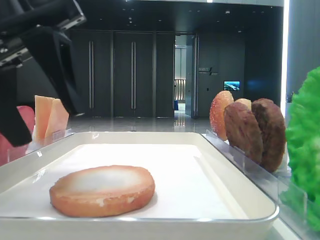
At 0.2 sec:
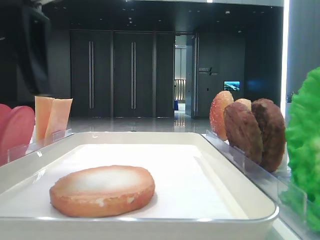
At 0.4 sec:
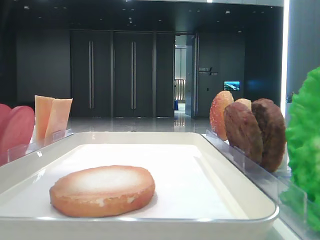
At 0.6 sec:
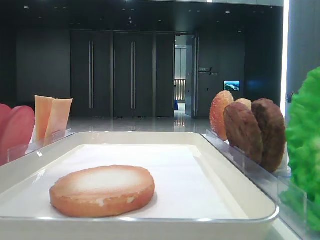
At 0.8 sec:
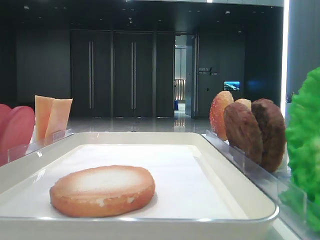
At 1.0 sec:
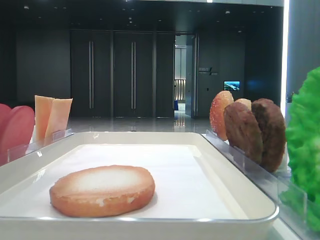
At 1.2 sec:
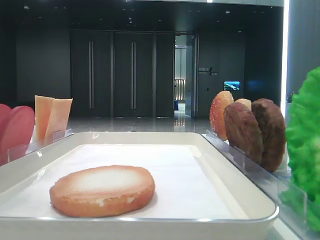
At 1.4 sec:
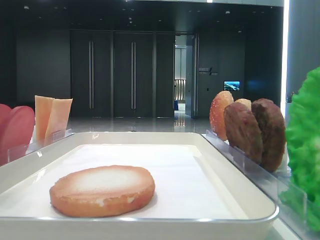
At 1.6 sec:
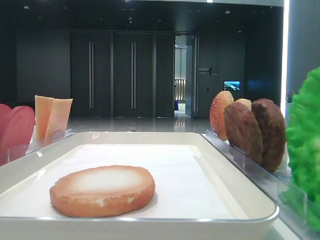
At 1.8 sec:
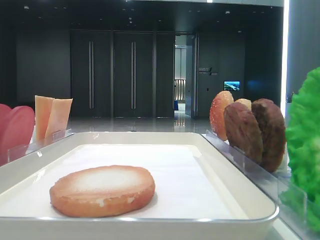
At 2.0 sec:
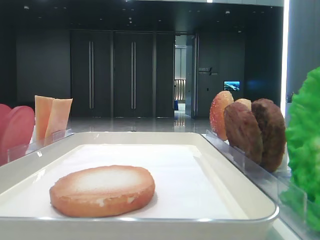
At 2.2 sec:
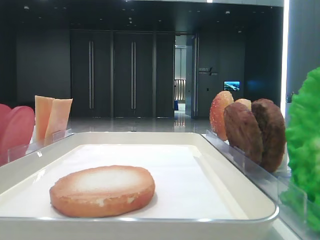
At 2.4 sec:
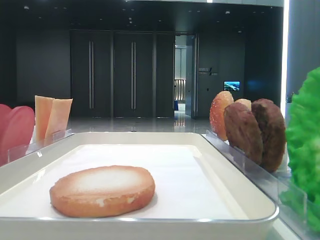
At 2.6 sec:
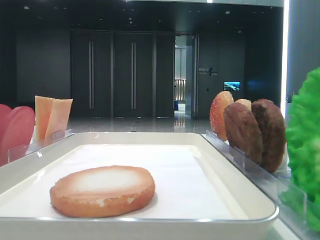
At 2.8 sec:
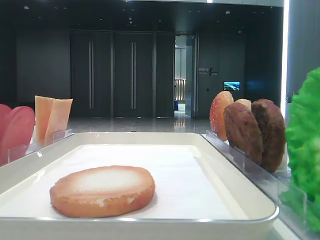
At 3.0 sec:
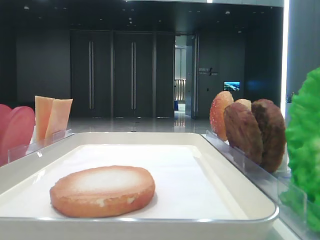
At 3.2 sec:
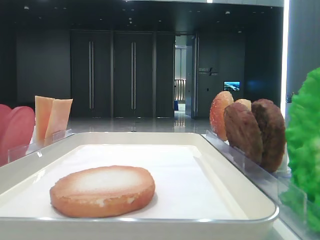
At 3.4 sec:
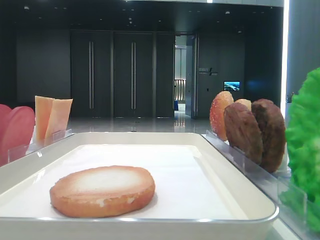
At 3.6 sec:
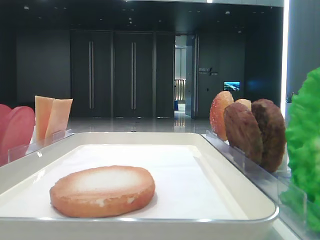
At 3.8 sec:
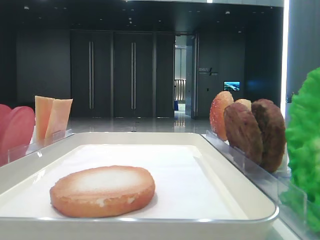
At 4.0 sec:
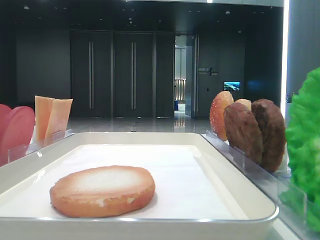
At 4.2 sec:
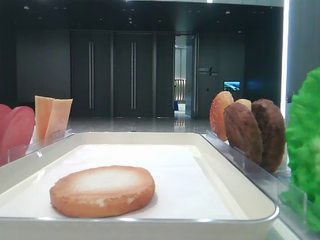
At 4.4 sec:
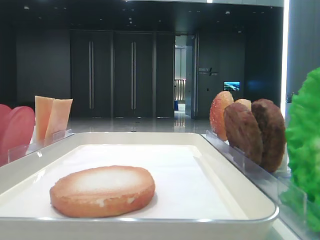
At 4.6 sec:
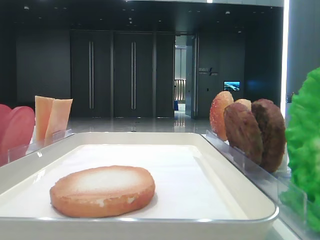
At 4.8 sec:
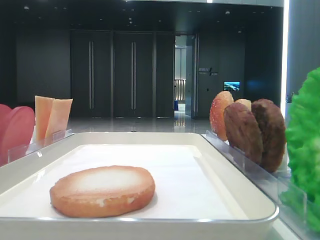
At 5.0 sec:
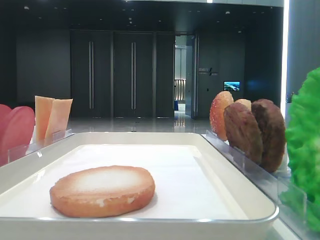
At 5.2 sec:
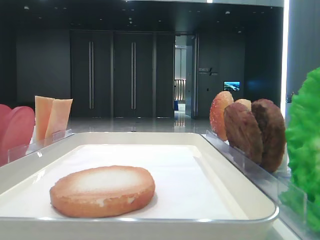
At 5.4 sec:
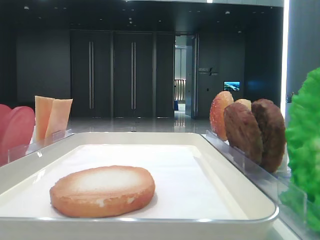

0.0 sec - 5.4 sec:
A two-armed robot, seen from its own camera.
0.0 sec - 1.4 sec: The left gripper travels upward and to the left by some 15 cm, and opens up.

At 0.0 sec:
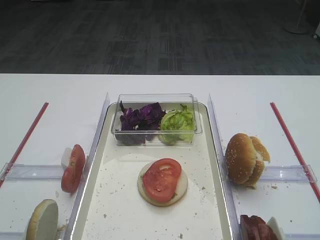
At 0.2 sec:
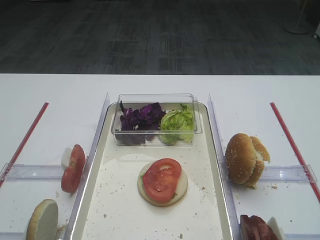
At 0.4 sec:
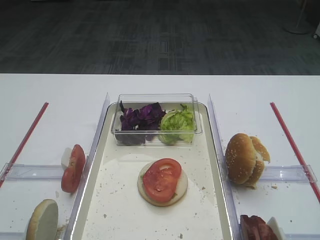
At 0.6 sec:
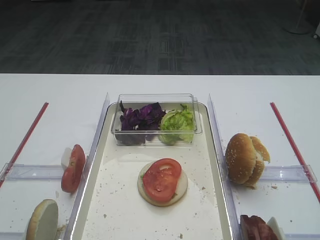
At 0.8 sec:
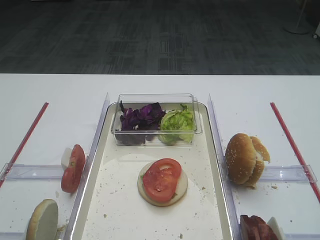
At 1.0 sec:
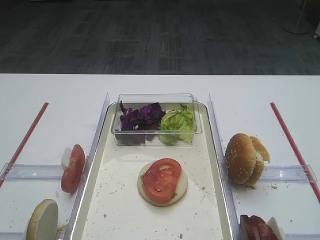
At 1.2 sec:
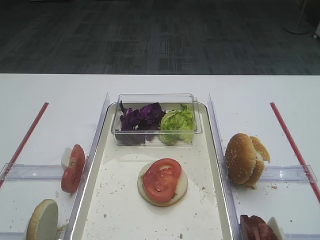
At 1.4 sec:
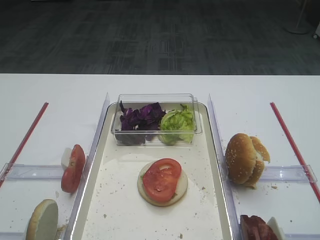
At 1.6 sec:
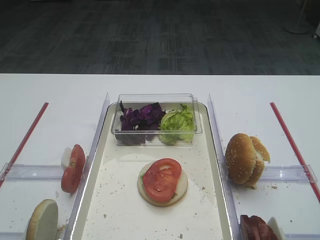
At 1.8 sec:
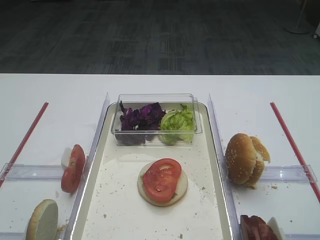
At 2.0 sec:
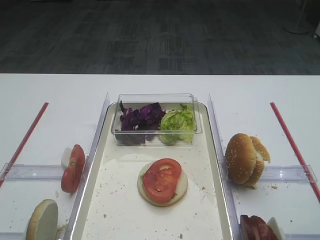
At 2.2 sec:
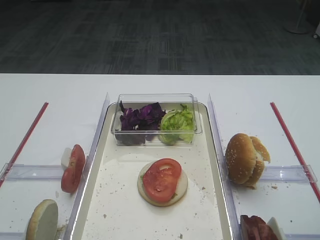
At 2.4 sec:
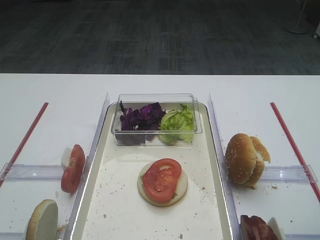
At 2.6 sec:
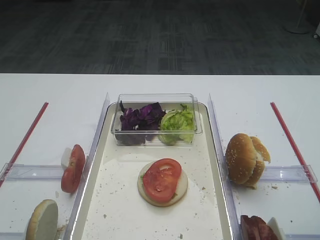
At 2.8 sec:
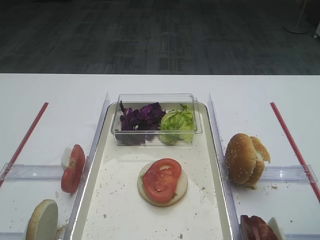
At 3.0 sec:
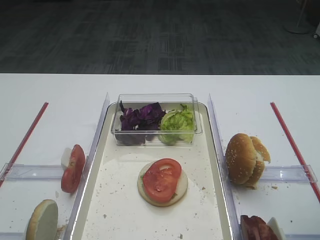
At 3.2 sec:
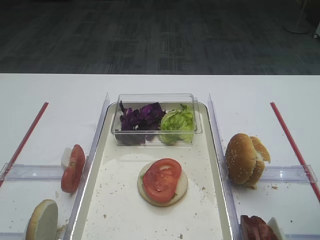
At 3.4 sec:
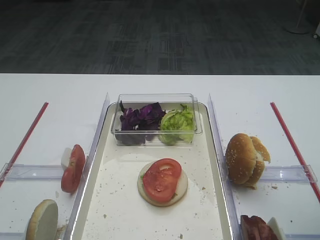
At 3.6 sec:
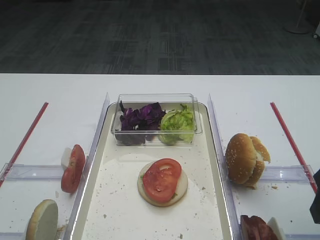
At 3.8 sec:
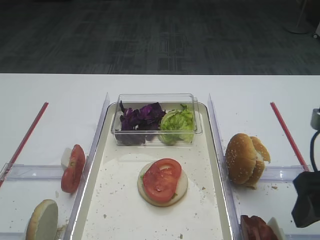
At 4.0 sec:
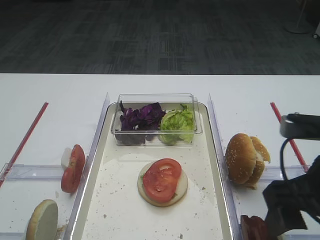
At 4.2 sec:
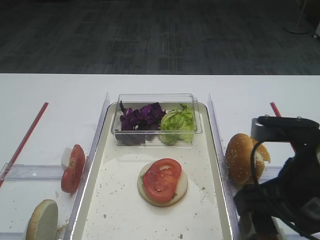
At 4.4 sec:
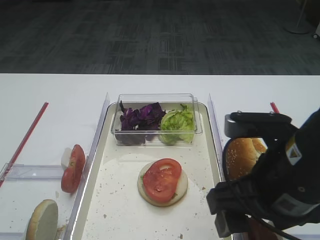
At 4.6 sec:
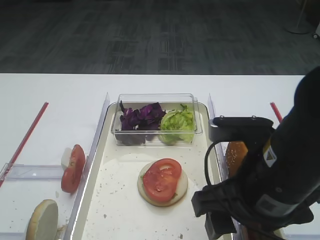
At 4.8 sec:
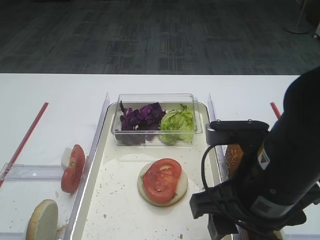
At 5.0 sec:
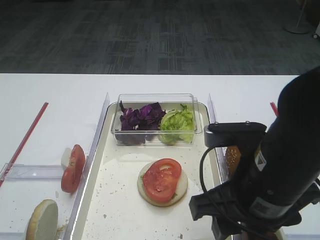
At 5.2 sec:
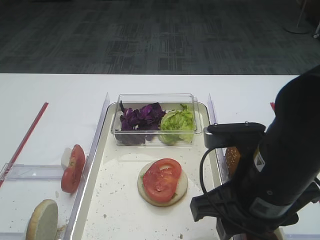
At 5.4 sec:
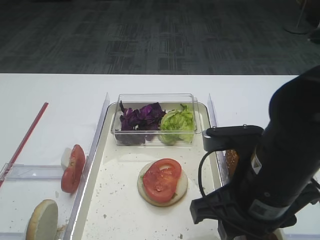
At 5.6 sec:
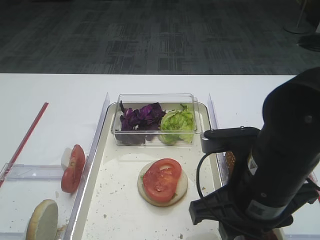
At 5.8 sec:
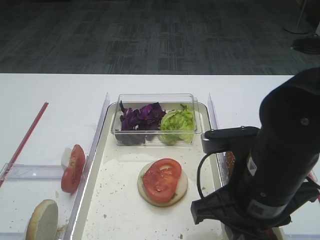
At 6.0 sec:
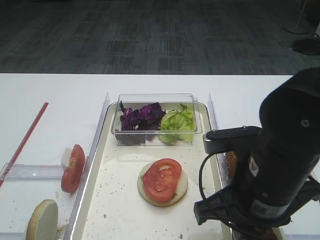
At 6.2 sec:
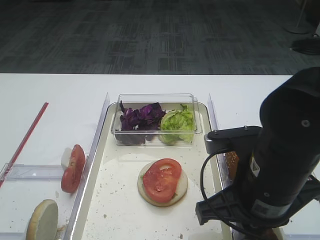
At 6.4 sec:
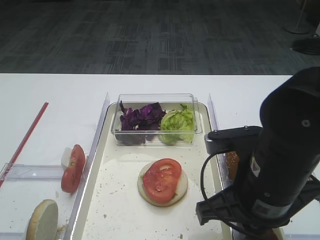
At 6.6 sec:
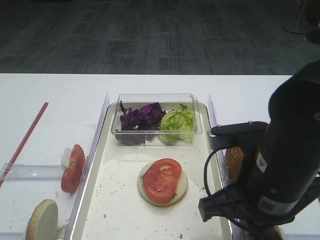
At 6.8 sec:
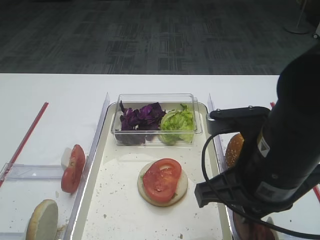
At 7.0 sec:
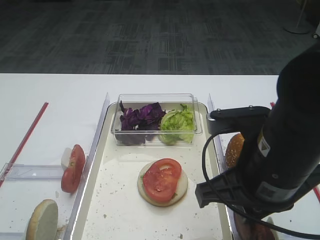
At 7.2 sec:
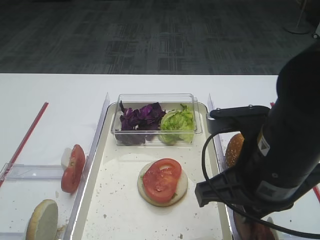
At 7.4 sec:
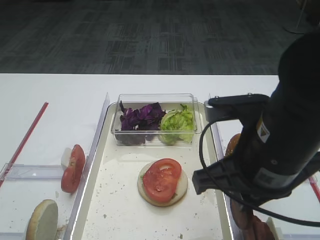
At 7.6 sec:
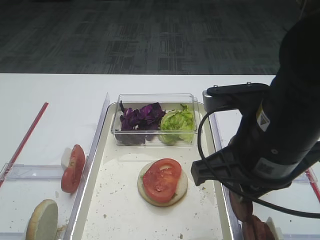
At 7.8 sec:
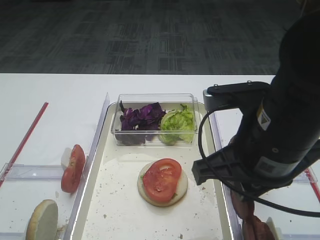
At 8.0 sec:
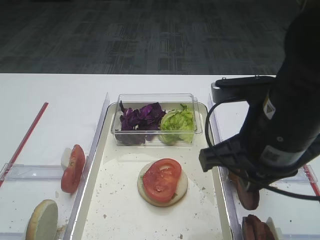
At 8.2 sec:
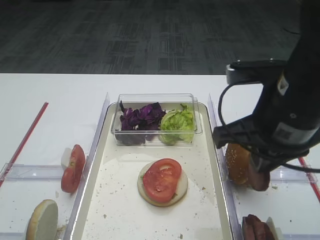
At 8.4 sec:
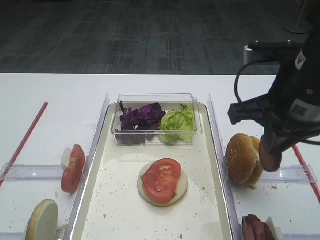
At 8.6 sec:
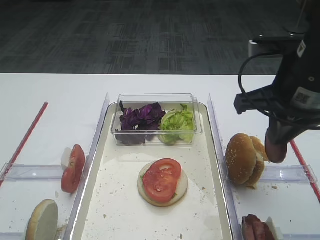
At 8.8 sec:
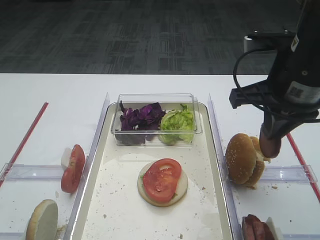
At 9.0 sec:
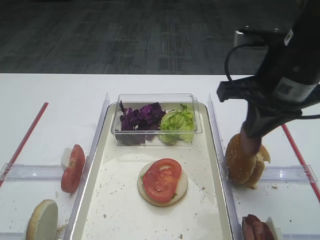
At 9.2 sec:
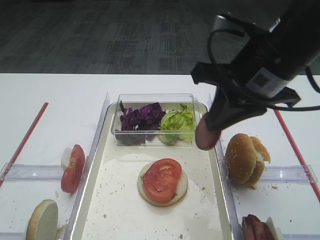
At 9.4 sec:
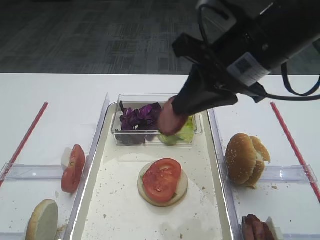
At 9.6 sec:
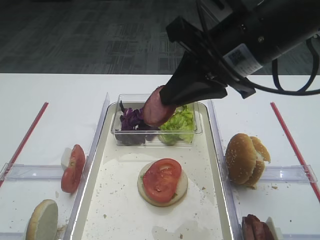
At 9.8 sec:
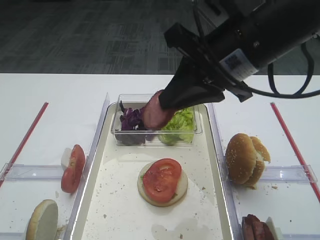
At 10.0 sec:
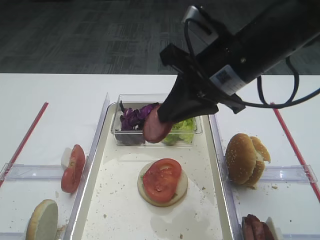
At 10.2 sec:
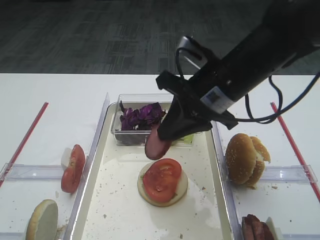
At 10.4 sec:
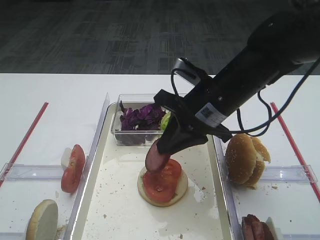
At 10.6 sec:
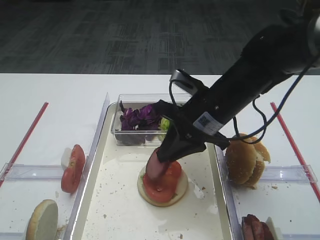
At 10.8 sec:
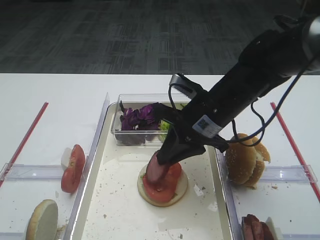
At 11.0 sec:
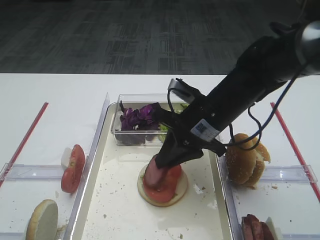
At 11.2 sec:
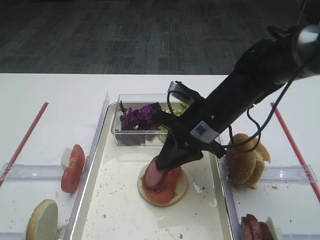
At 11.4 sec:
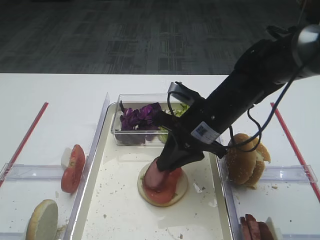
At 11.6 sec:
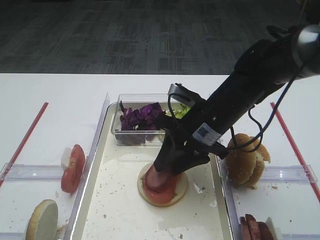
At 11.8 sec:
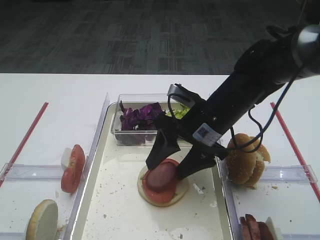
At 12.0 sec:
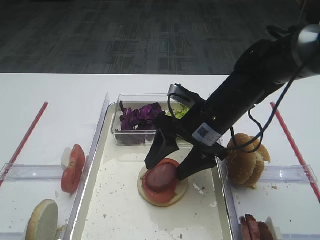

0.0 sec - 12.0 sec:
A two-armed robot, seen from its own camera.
Step, 0.0 sec - 7.2 sec: Pick up the cutlet with the right gripper.
3.0 sec - 4.4 sec: The right gripper goes some 15 cm to the left.
4.4 sec - 6.0 sec: The right gripper closes up.
6.0 sec - 7.6 sec: The right gripper moves upward, roughly 5 cm.
7.6 sec - 9.0 sec: The right gripper goes roughly 10 cm forward.
9.0 sec - 10.4 sec: The right gripper heads to the left and downward, covering some 10 cm.
10.4 sec - 12.0 sec: The right gripper opens up.

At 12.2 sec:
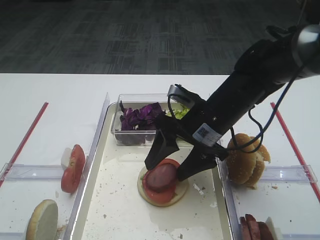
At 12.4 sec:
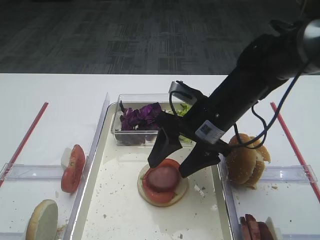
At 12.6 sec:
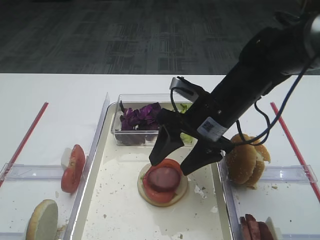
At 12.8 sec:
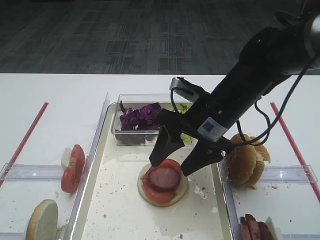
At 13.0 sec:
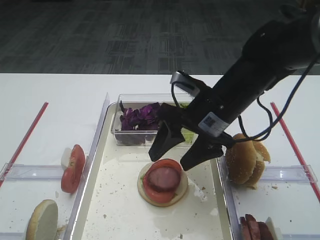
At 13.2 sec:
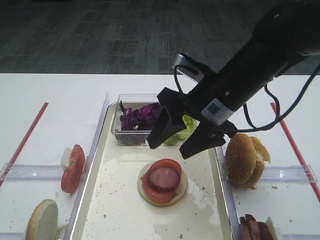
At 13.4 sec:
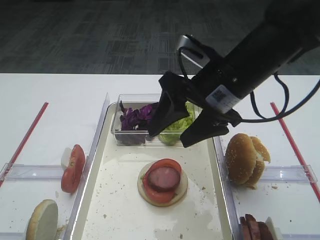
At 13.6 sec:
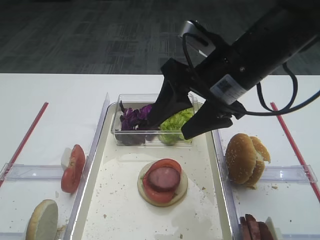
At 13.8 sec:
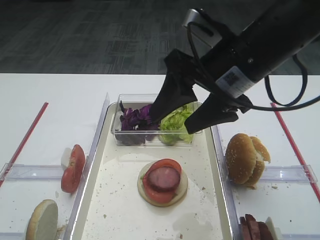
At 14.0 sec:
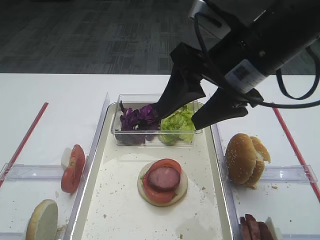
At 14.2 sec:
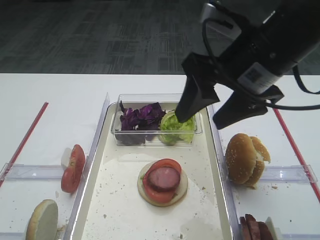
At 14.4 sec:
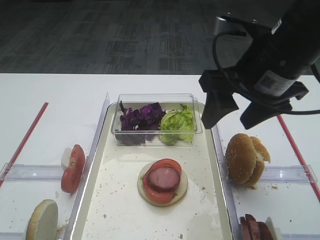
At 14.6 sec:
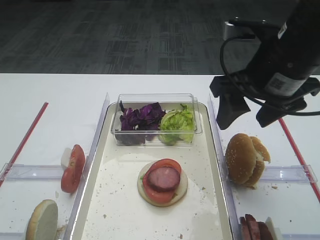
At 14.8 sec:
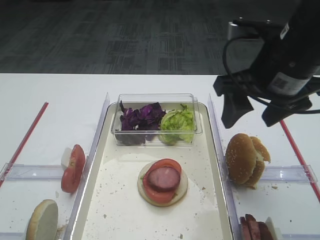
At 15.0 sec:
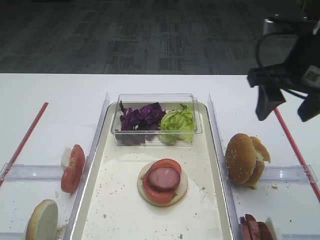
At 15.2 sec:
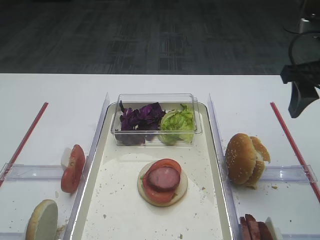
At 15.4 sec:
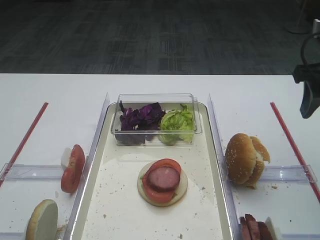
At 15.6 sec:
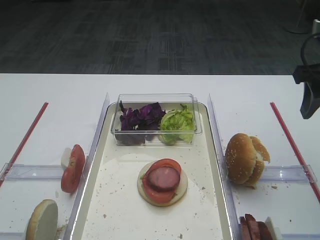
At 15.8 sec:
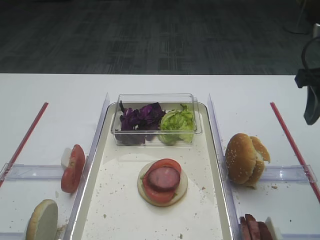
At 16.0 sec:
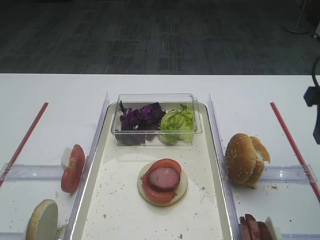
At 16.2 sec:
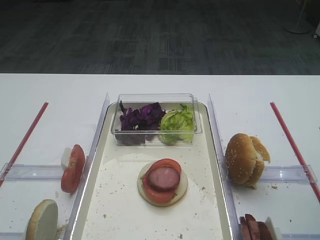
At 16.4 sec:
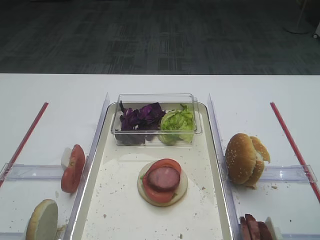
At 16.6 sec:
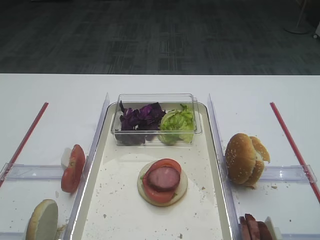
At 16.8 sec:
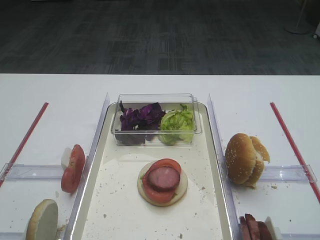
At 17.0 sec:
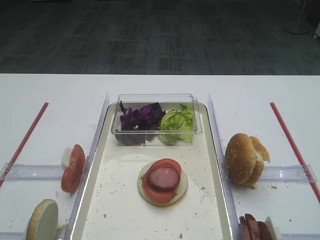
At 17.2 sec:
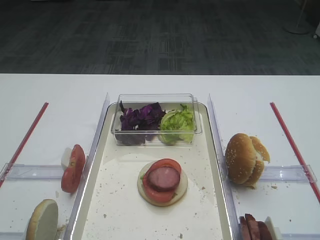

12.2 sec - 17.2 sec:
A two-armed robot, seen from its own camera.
12.2 sec - 13.8 sec: The right gripper moves upward, about 10 cm.
13.8 sec - 15.6 sec: The right gripper heads to the right, covering some 15 cm.
15.6 sec - 17.2 sec: The right gripper travels backward by about 30 cm.
